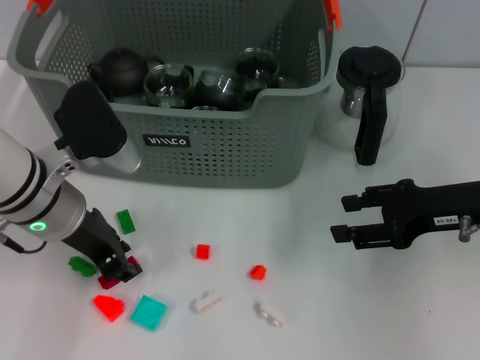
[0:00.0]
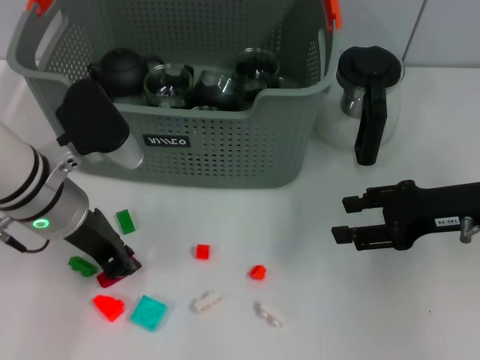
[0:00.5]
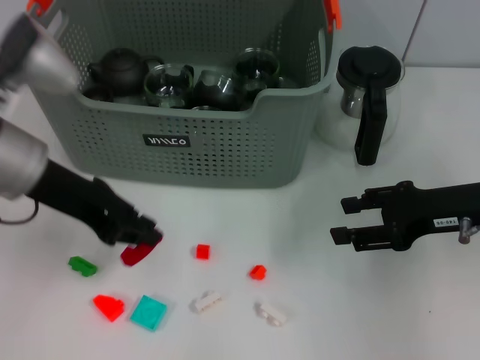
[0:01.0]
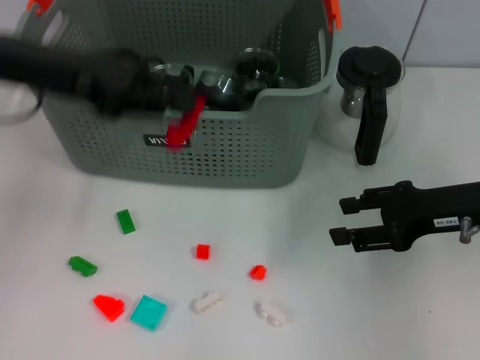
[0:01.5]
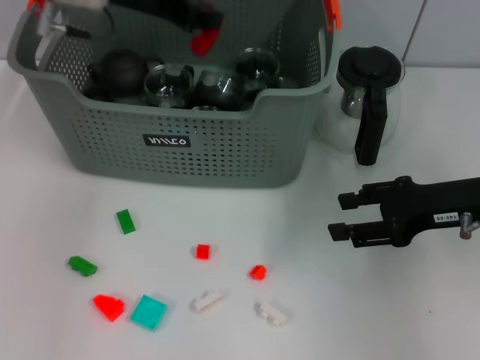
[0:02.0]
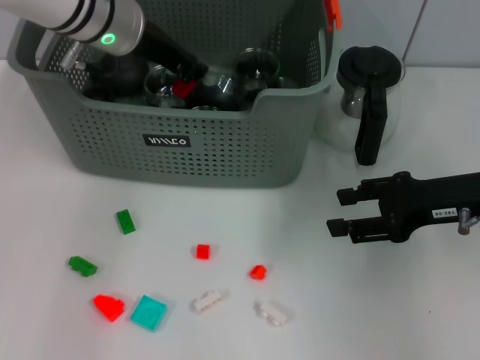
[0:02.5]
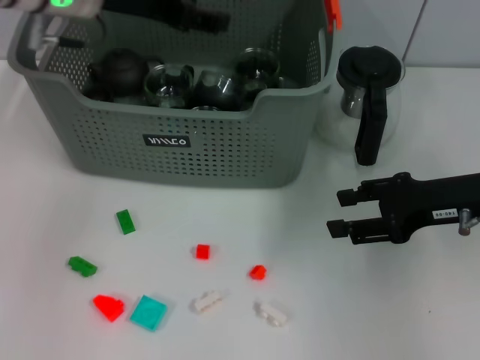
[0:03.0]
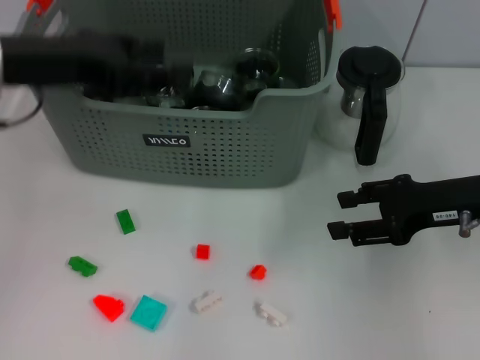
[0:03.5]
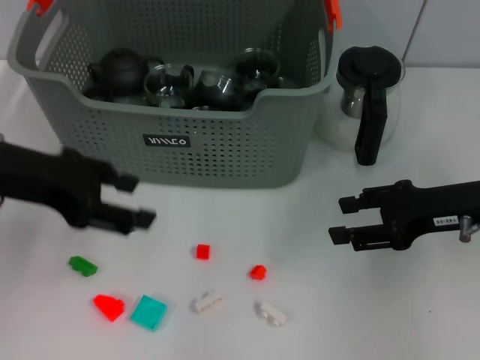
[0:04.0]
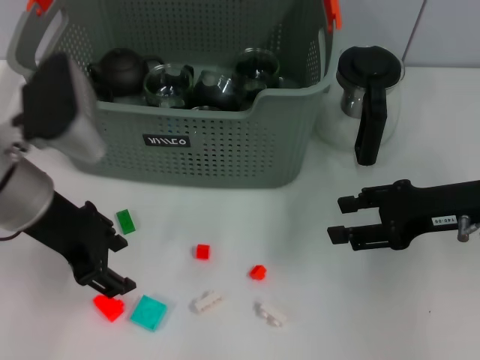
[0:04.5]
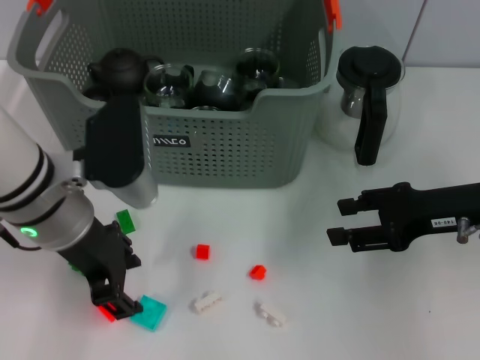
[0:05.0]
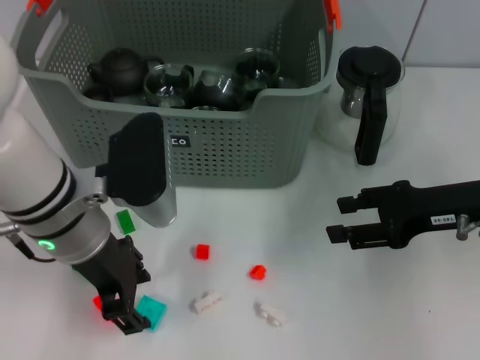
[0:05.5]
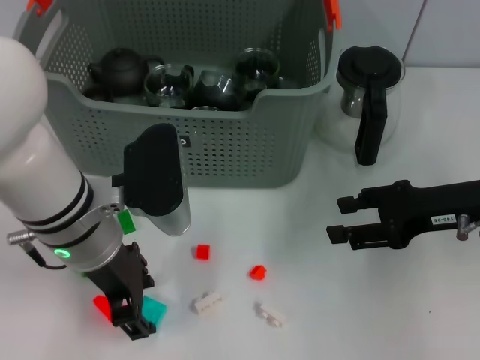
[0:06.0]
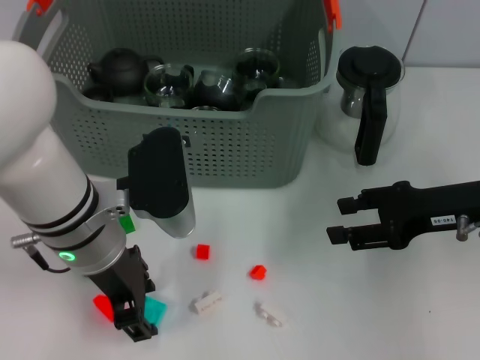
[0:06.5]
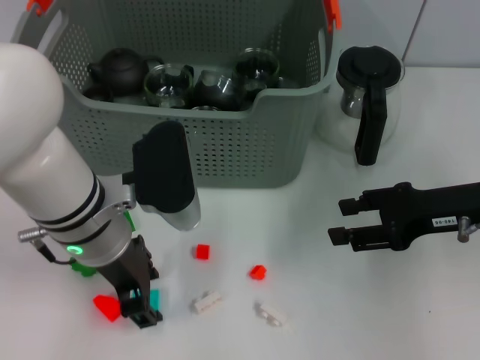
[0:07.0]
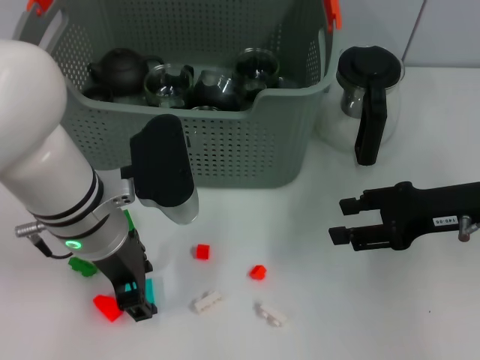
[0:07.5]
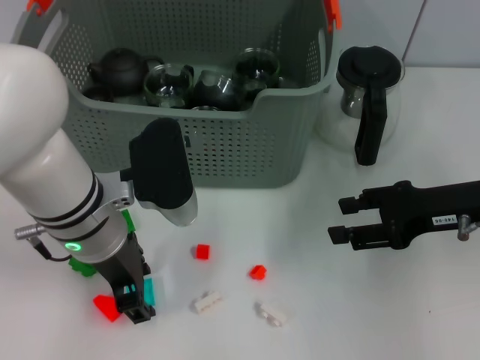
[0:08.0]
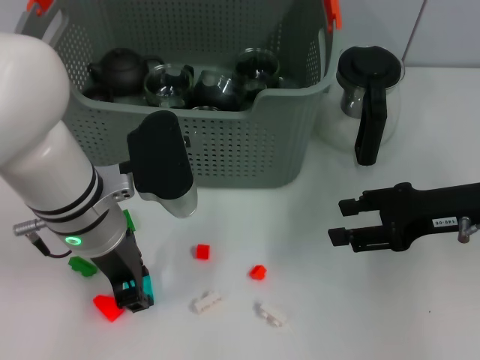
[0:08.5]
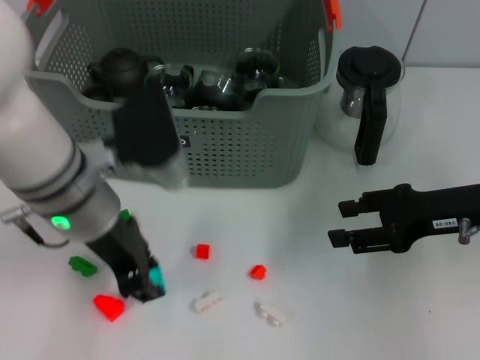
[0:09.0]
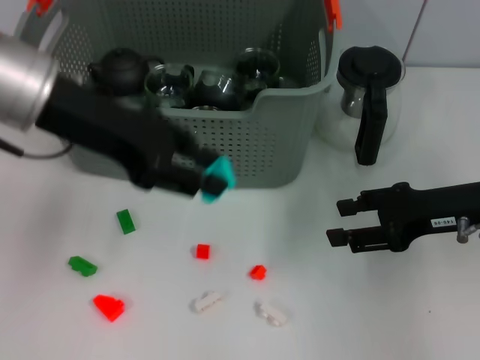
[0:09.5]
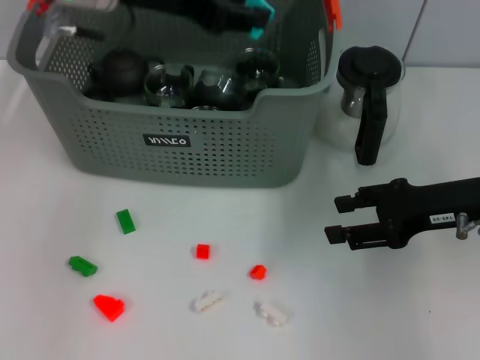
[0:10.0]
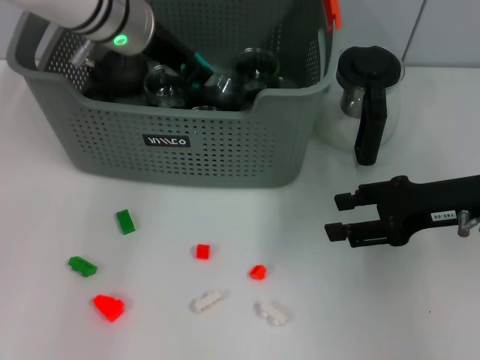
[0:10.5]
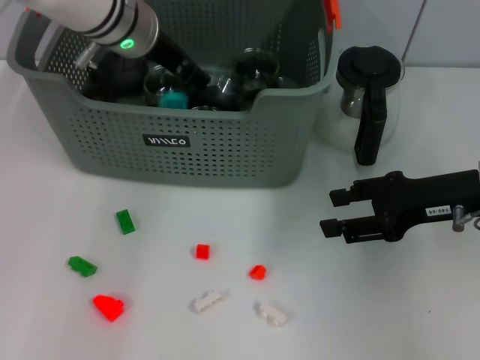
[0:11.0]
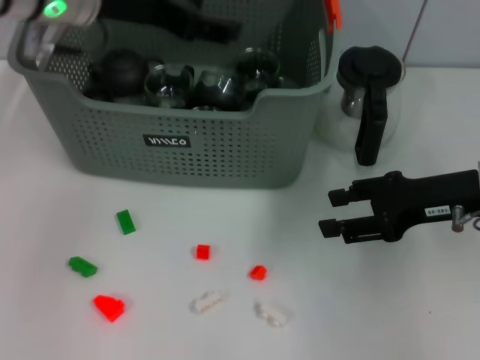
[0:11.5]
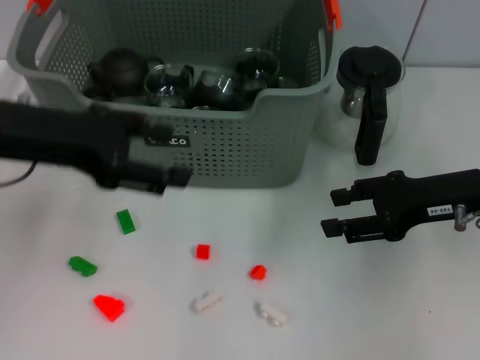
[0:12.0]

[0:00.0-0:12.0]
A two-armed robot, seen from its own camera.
Task of the whole recording: pick up the teacup on the table and place it into the storage bin, pick up the block on the table and place it into the storage bin.
Step, 0:00.5 to 0:02.5: Place the red block in the storage box with left gripper.
Step, 0:03.0 to 0:08.5: Grasp the light blue block with left gripper.
Step, 0:09.0 to 0:11.0: Place the light blue block in the storage box with left gripper.
0:00.0 to 0:02.0: The left gripper travels upward and forward by about 15 cm.
0:02.0 to 0:04.0: The left gripper travels backward and to the left by approximately 15 cm, and opens.
0:04.0 to 0:06.0: The left gripper moves to the right and downward, roughly 15 cm.
0:06.0 to 0:08.0: The grippers stay close to where they were, moving slightly.
0:08.0 to 0:10.0: The left gripper shifts roughly 15 cm upward and forward.
0:10.0 to 0:12.0: The left gripper heads backward, to the left and downward, covering about 15 cm, and opens up.

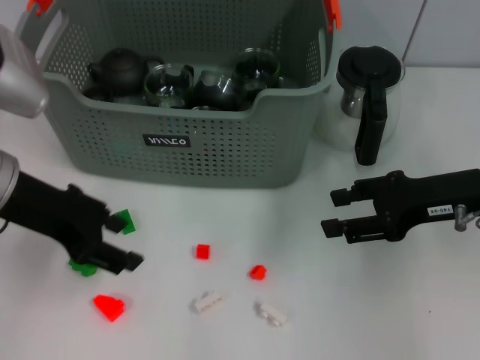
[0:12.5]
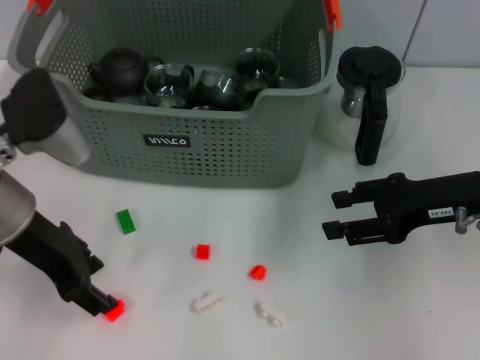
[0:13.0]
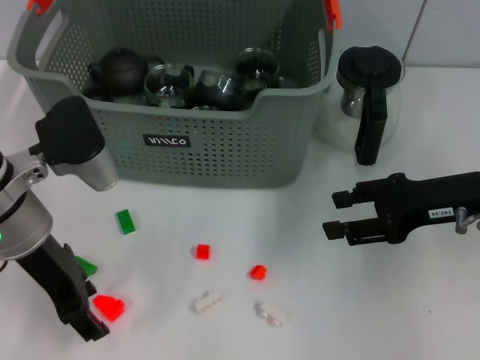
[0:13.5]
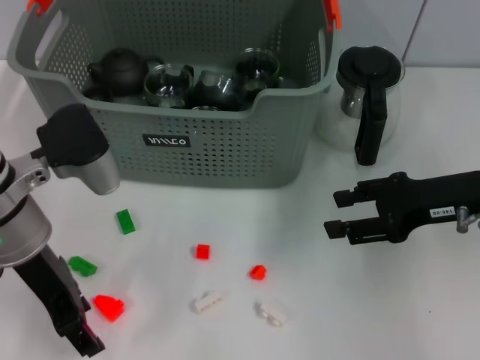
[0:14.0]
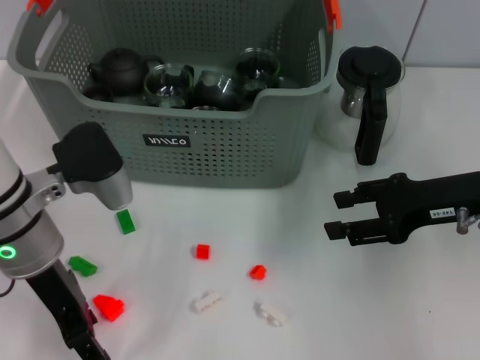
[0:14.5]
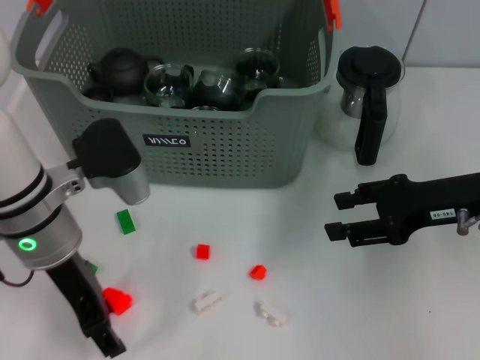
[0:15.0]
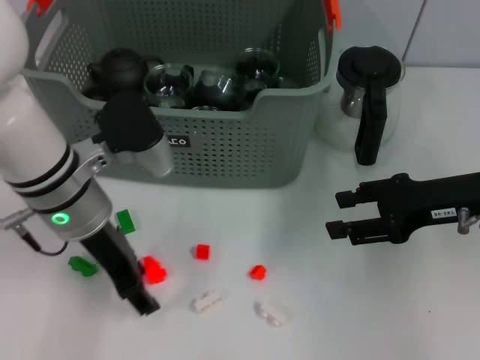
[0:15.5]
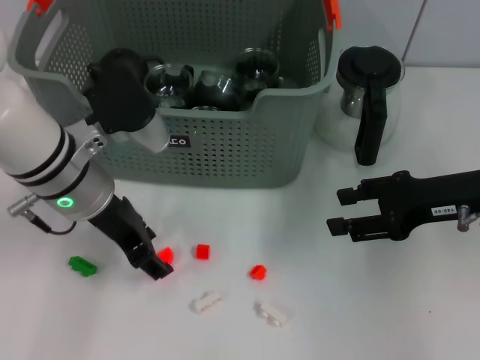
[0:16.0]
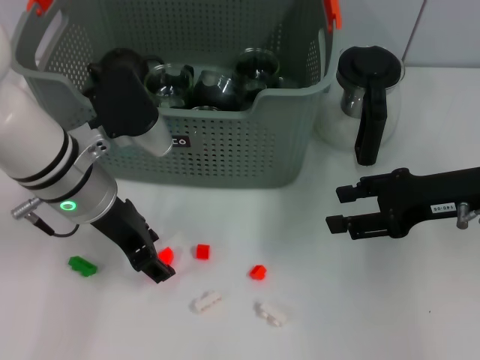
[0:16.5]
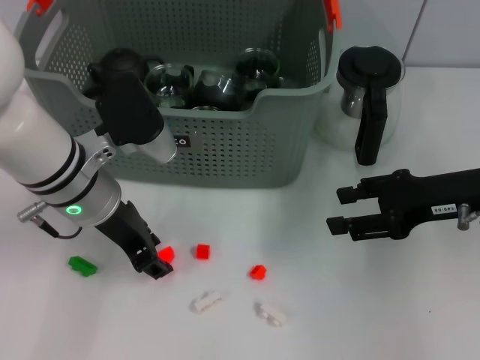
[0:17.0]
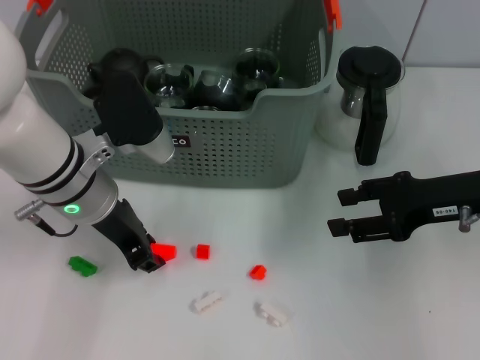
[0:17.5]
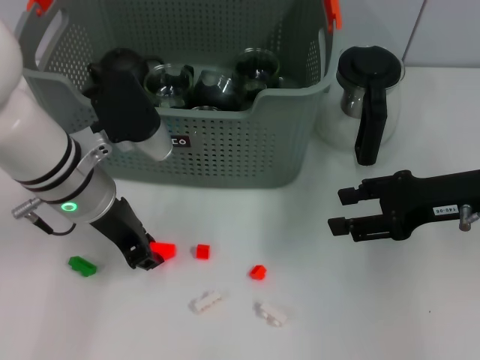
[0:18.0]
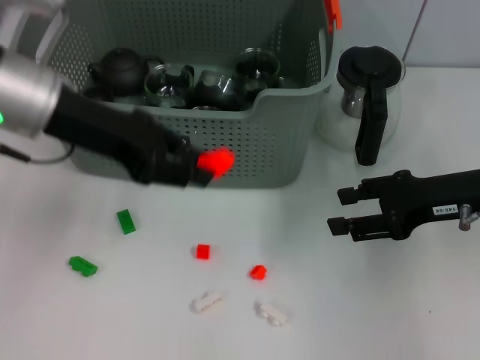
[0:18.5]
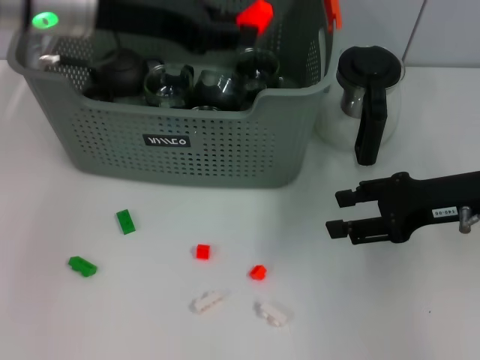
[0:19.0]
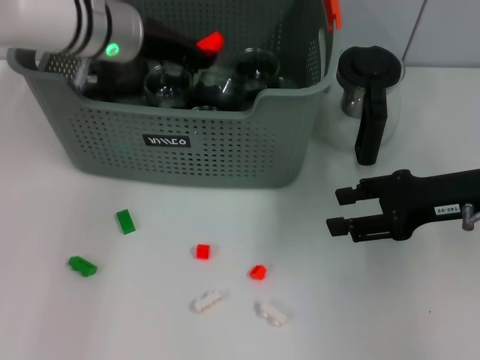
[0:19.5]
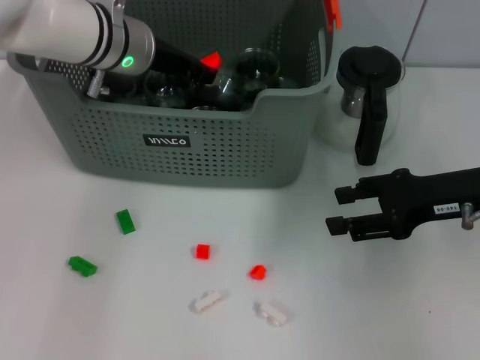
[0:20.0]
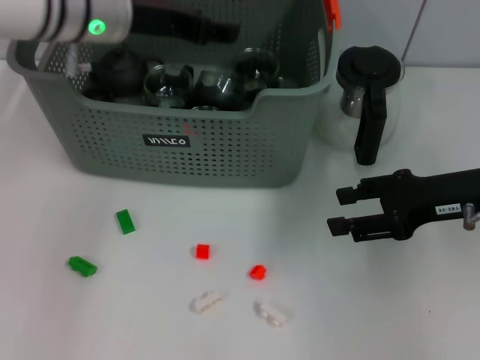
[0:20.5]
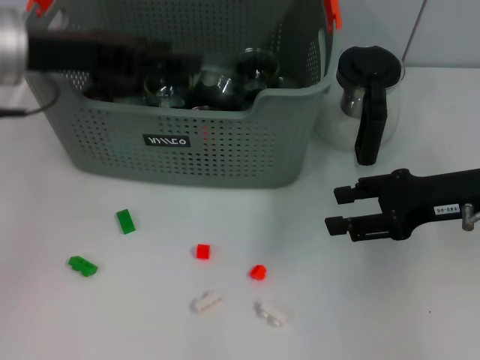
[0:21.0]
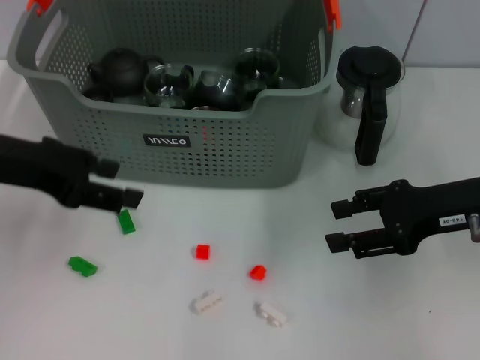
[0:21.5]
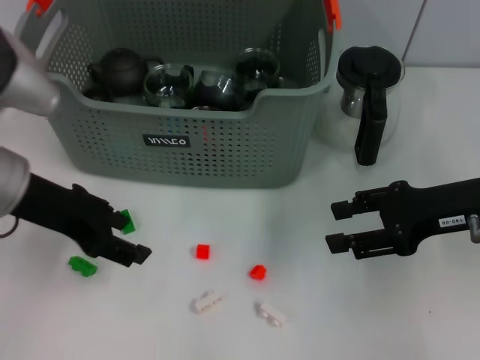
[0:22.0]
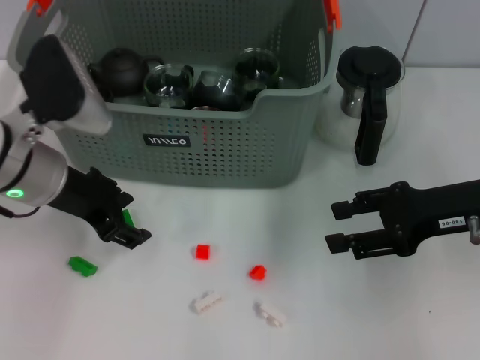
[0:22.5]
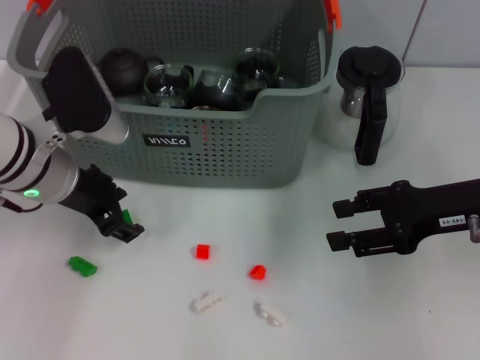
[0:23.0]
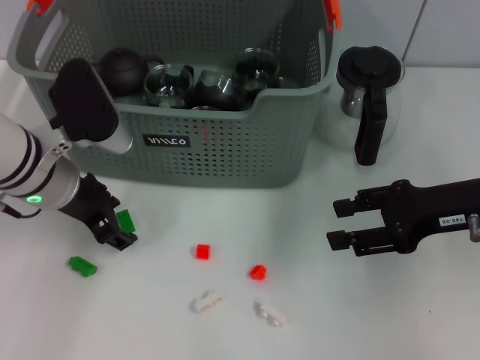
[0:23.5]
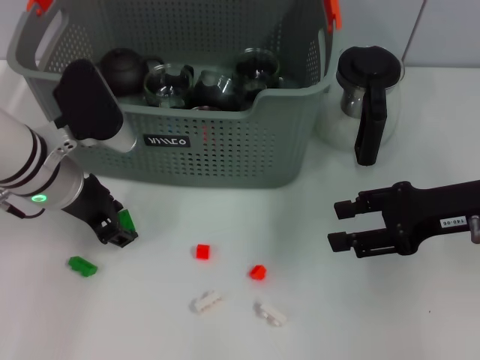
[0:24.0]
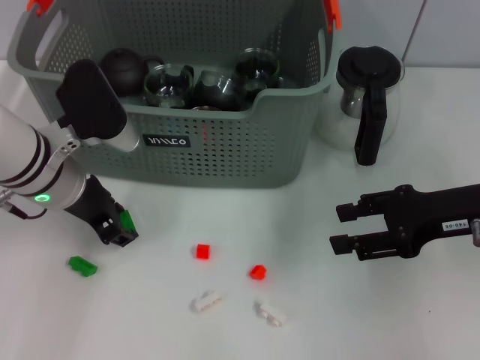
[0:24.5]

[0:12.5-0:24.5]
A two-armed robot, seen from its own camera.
Task of the whole recording: pick up the teacup on the table and place it into the storage bin, pick up the block on the table and place it into the storage bin.
Step, 0:12.5 to 0:17.5: Grasp the orange block with left gripper.
Step, 0:18.0 to 0:20.0: Place the orange block in the storage box with left gripper.
0:12.5 to 0:14.5: The left gripper heads downward, covering roughly 5 cm.
0:14.5 to 0:16.5: The grippers move only a little.
0:16.5 to 0:18.5: The left gripper travels upward by roughly 10 cm, and closes up.
0:18.5 to 0:20.5: The left gripper heads forward, covering about 5 cm, and opens up.
0:20.5 to 0:22.5: The left gripper moves backward and downward, roughly 10 cm.
0:22.5 to 0:24.5: The grippers move only a little.

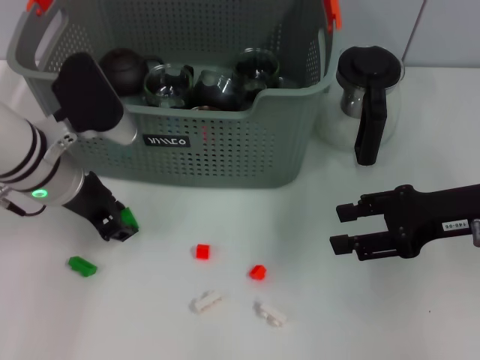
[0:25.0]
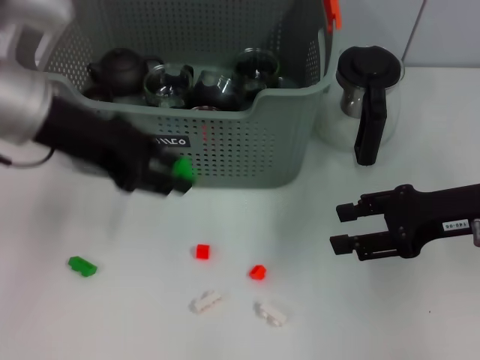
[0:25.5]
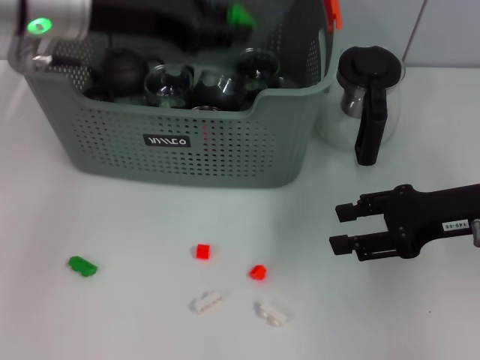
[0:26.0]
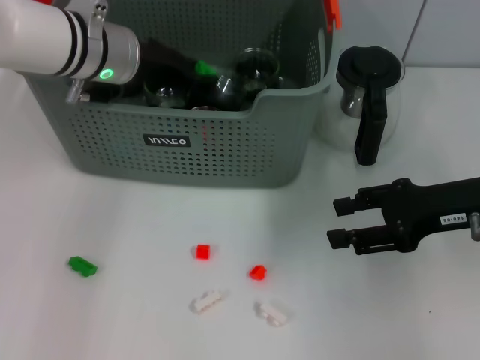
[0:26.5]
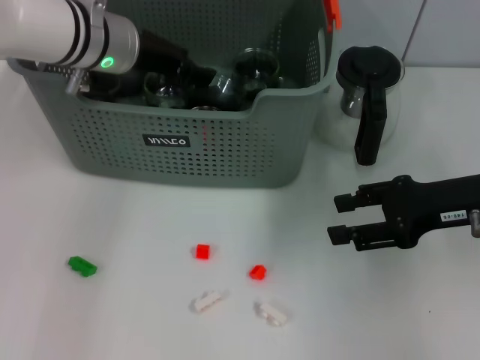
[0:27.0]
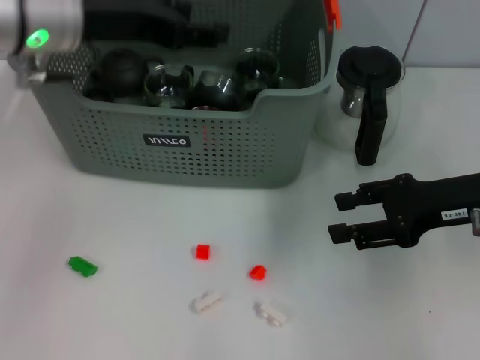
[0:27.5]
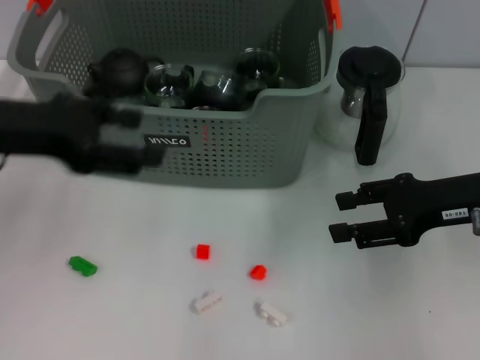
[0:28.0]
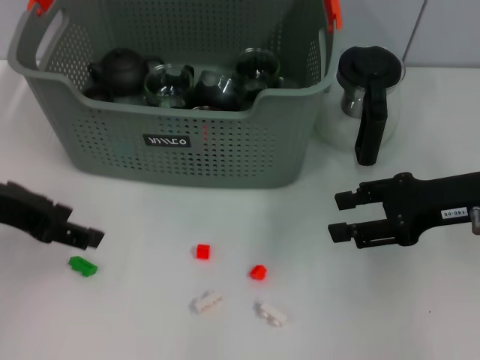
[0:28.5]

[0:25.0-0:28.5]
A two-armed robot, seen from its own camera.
Task of the whole recording: pick up the teacup on the table and place it into the storage bin, pick up the block on the table and place it into the storage bin.
Step, 0:25.0 to 0:27.0: Place the green block in the storage box with left gripper.
0:25.0 to 0:27.0: The left gripper travels forward and upward by roughly 10 cm.
0:27.0 to 0:28.5: The left gripper moves backward and to the left, some 20 cm.
